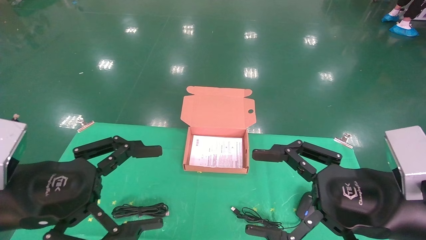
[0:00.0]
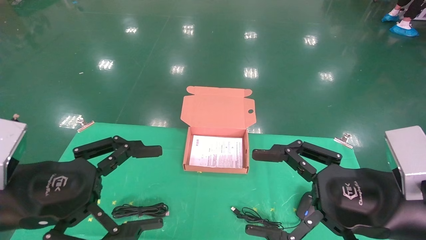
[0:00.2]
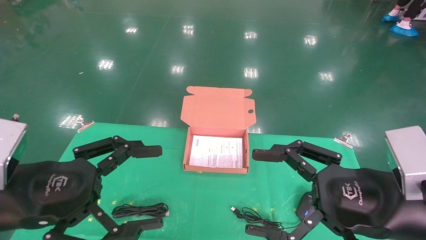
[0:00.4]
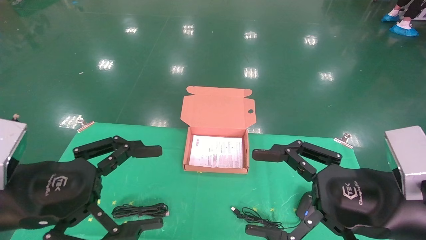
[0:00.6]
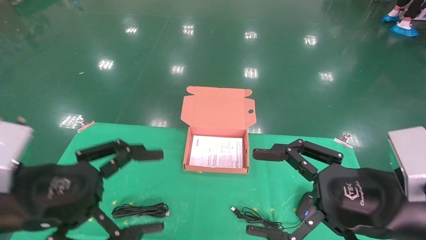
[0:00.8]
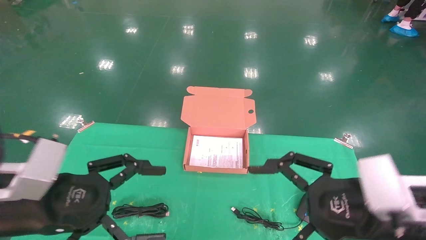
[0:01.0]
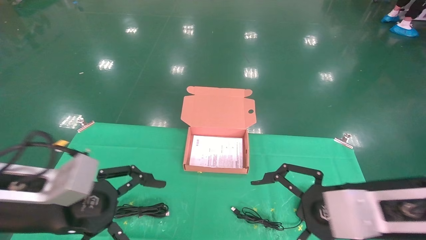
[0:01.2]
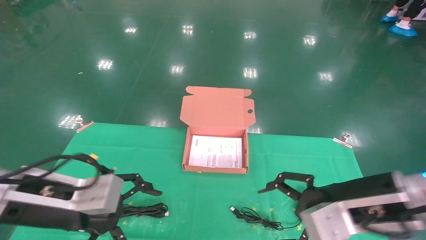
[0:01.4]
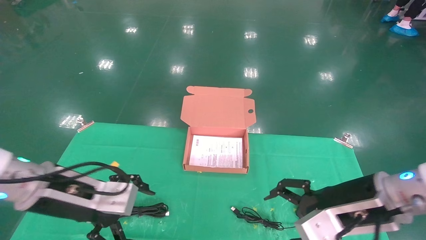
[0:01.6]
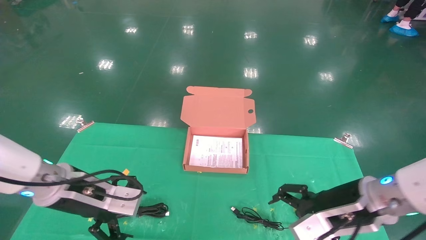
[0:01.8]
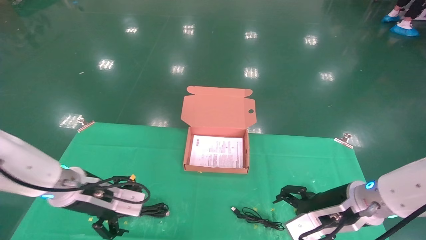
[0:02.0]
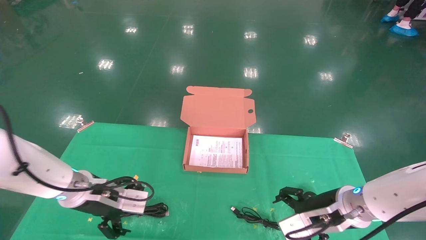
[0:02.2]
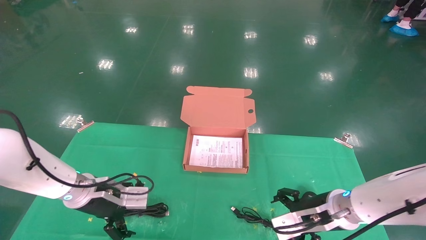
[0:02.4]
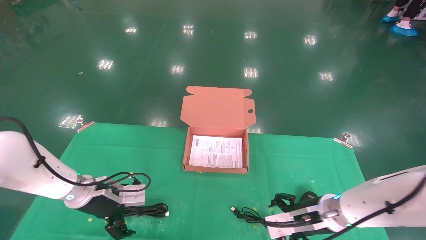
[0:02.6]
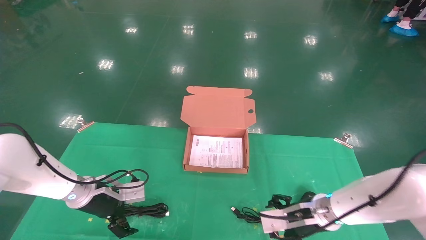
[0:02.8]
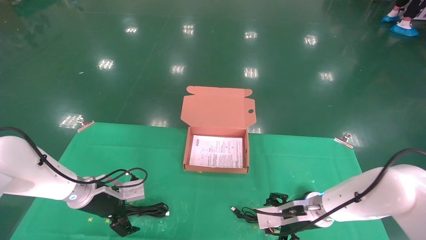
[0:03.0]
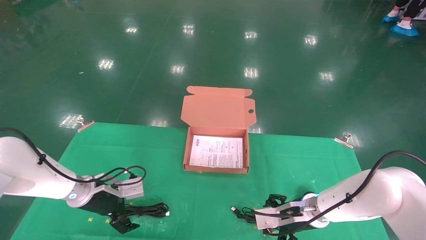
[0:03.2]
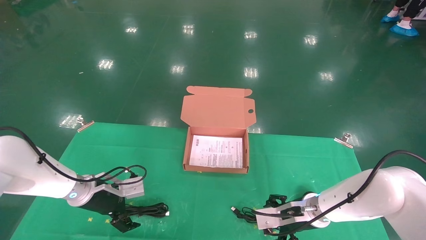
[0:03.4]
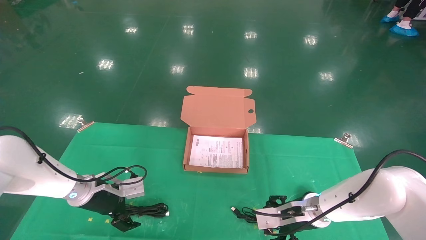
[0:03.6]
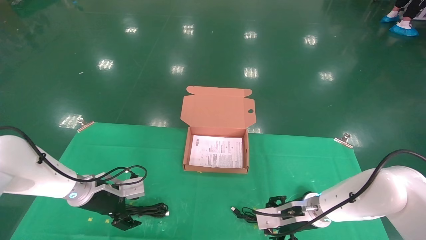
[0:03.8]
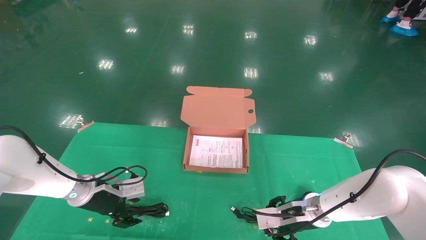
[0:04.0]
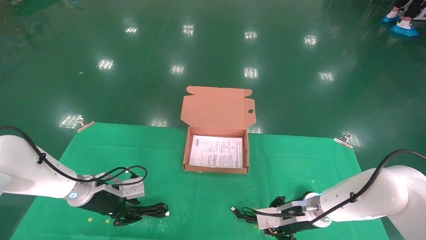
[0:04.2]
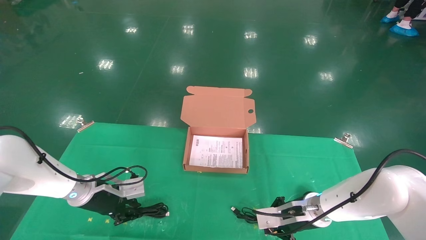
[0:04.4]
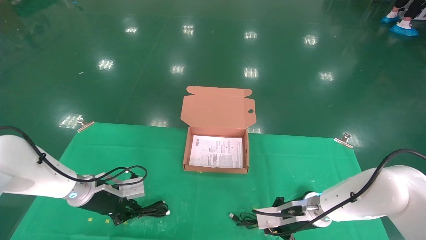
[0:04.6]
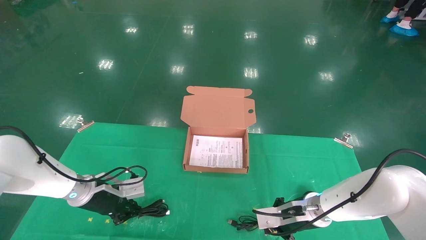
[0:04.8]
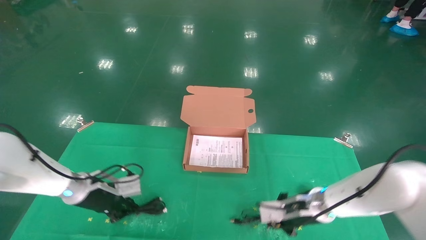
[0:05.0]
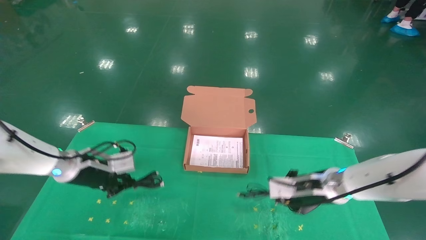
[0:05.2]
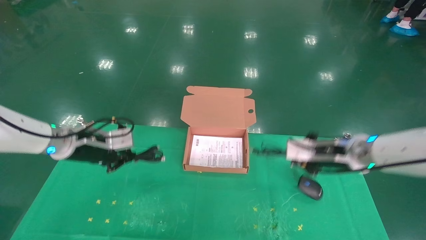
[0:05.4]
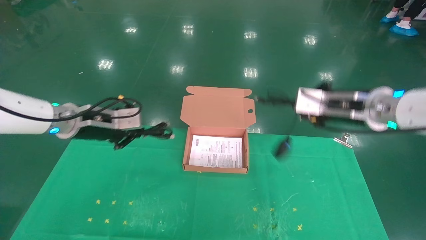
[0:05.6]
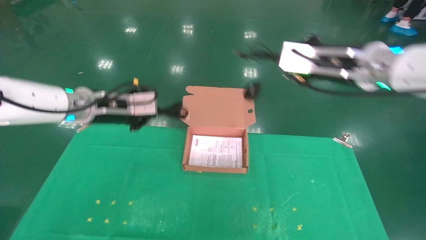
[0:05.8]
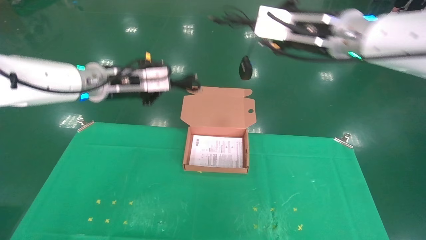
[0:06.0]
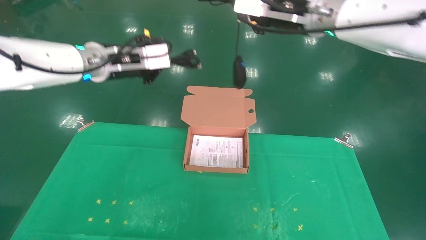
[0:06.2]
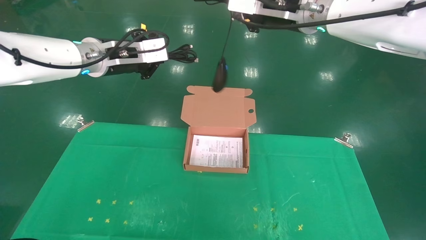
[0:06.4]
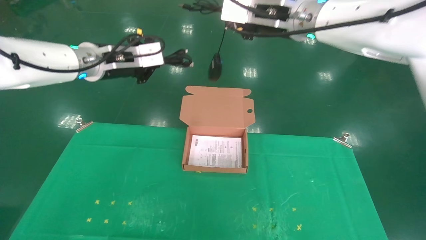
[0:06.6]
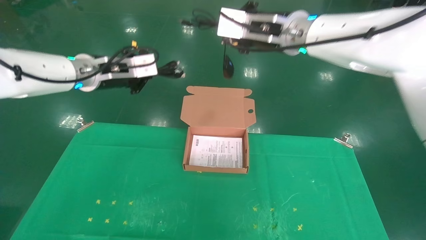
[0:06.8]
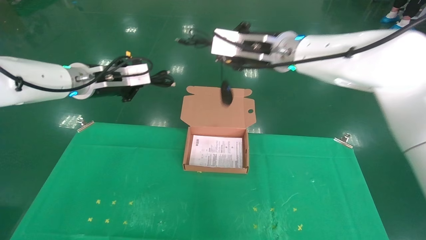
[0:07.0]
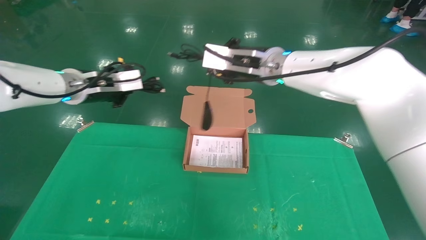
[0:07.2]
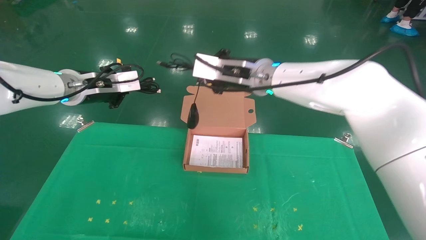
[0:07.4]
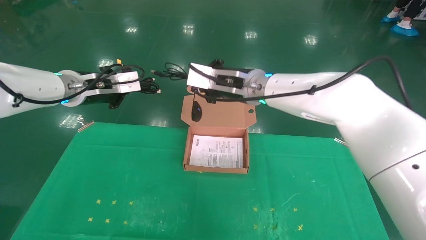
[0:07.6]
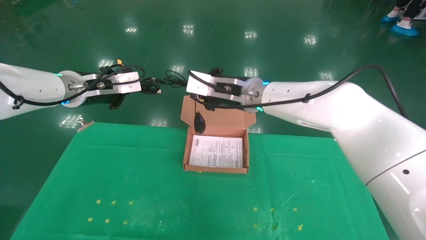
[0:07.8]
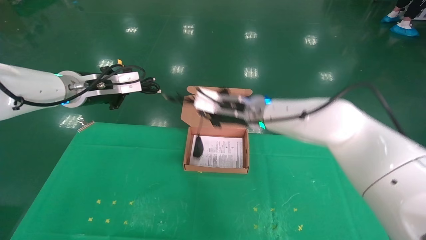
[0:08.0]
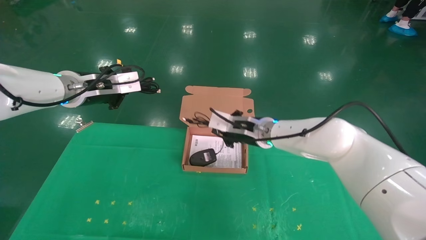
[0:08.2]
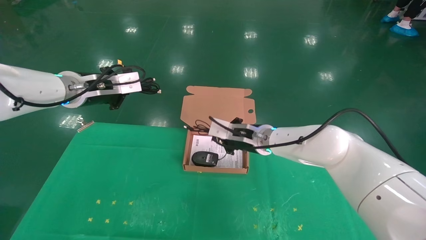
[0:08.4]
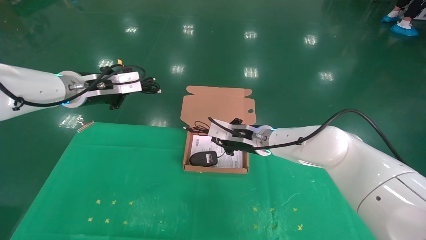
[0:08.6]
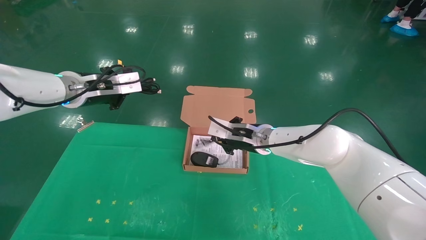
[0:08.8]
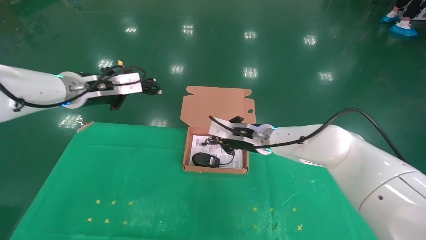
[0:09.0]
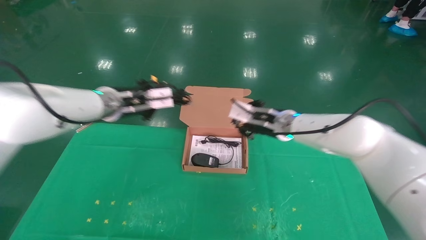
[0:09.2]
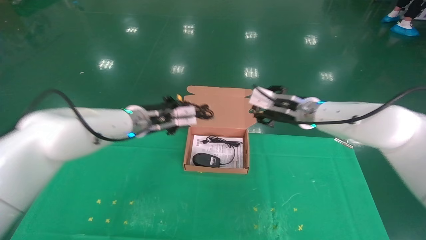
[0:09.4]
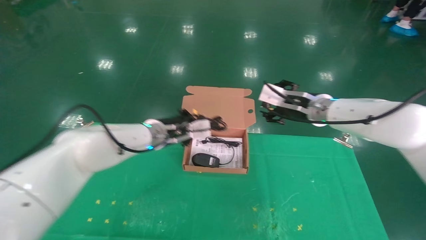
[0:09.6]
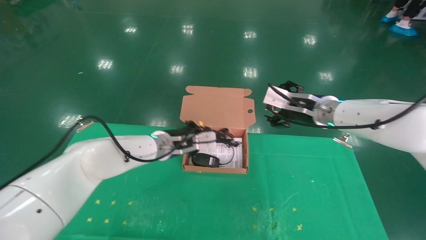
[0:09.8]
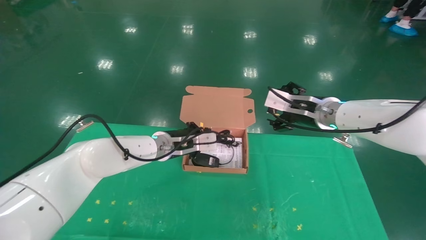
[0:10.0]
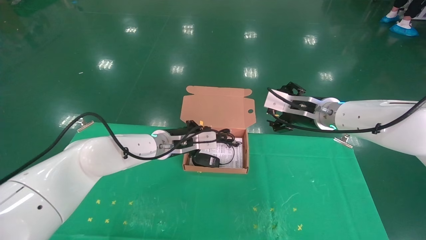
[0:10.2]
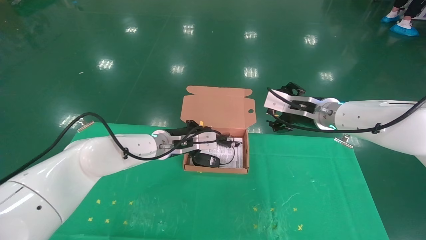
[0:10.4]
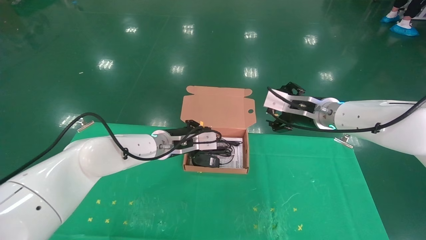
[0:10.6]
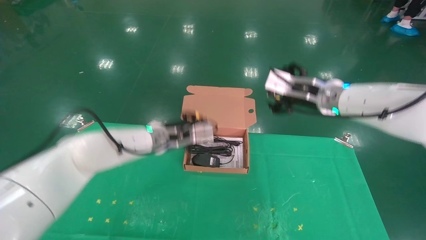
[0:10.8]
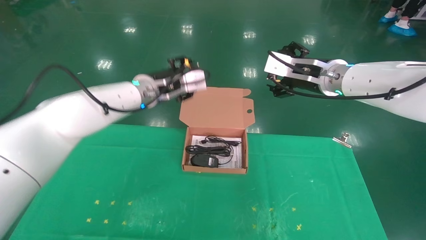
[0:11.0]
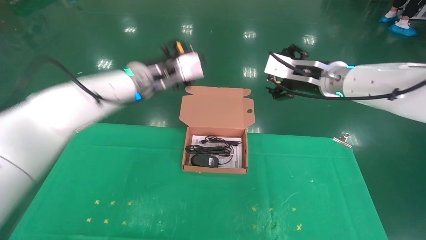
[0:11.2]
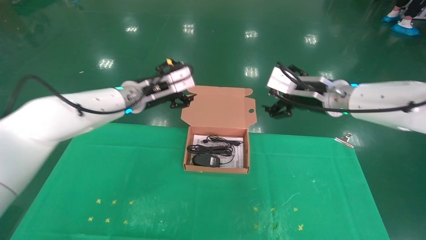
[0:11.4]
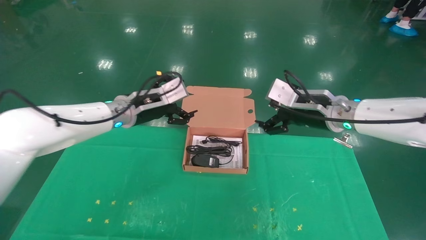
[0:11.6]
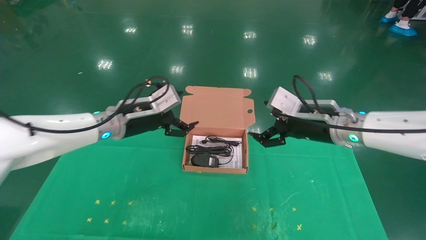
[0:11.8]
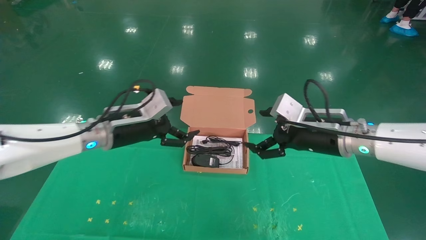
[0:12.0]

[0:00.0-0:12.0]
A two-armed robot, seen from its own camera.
Task of the whole recording: grasp data cable left put into box grasp mouse right put into box.
Step, 0.8 to 5.6 s: Grab and pick up both the mouse and power cord from the accessory packaging area at the same time.
Step, 5.8 to 11.0 s: Place the mouse and power cord into the box.
0.0 to 1.6 s: The grippers both shift forward by some 10 cm.
1.6 to 3.0 s: The left gripper heads forward and downward, covering approximately 20 cm, while the right gripper heads downward and forward, covering approximately 15 cm.
3.0 to 4.4 s: The right gripper closes. The left gripper closes up.
4.4 to 6.0 s: The two grippers go roughly 30 cm upward.
6.0 to 7.6 s: The right gripper travels to the left, downward and forward by some 15 cm. The left gripper moves some 5 cm.
7.6 to 9.0 s: The right gripper goes some 15 cm downward and to the right.
9.0 to 10.4 s: The left gripper travels to the right and downward by roughly 20 cm, while the right gripper shifts some 10 cm to the right and upward, and opens up.
10.4 to 12.0 s: The left gripper shifts some 15 cm to the left, backward and upward, and opens its fingers; the right gripper shifts approximately 5 cm backward, and travels upward and back again, some 5 cm each way.

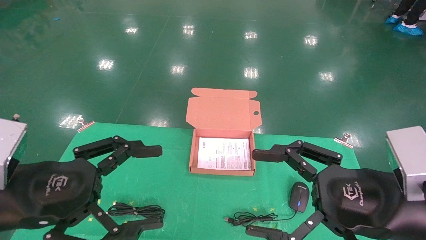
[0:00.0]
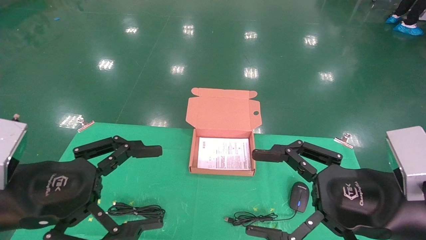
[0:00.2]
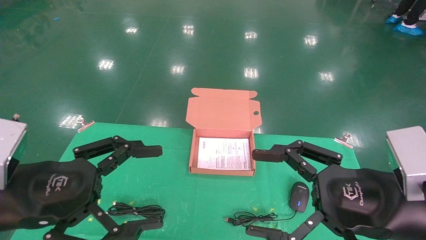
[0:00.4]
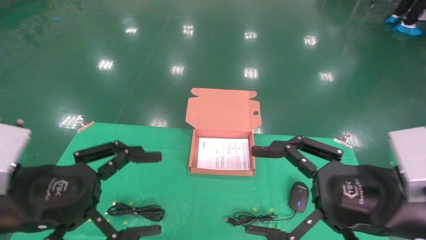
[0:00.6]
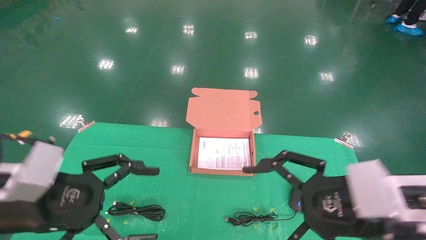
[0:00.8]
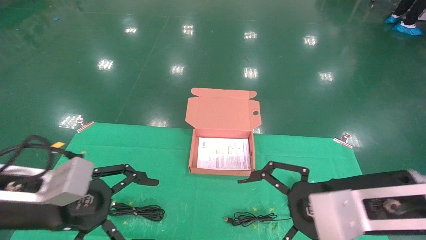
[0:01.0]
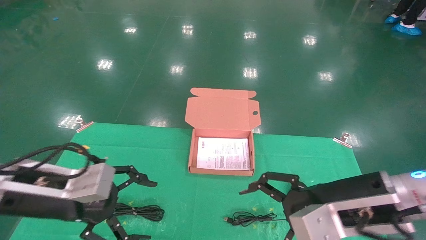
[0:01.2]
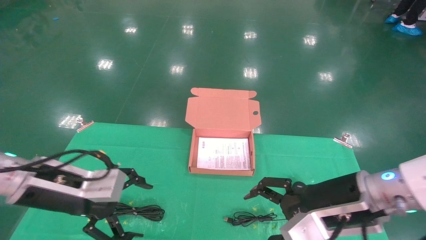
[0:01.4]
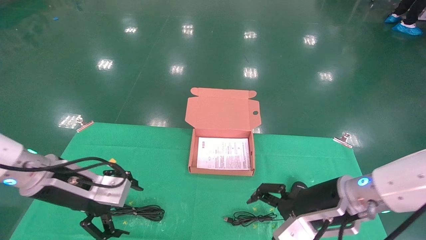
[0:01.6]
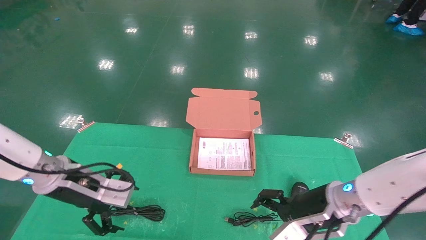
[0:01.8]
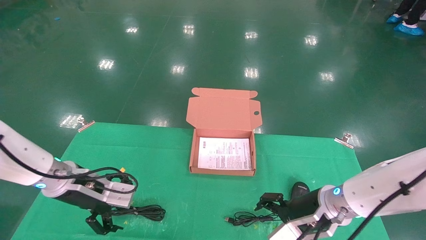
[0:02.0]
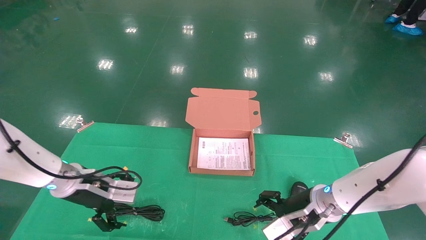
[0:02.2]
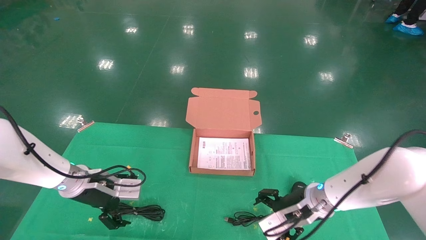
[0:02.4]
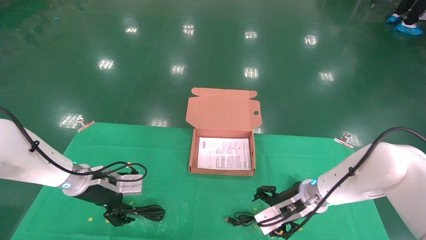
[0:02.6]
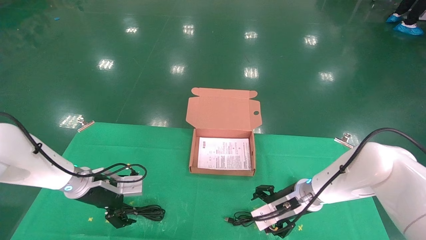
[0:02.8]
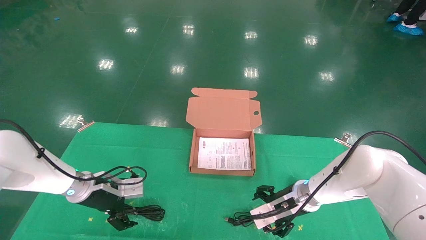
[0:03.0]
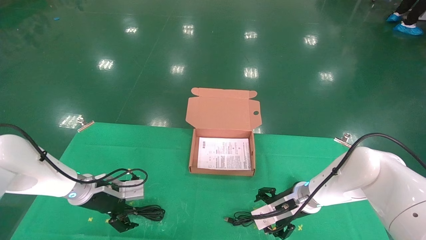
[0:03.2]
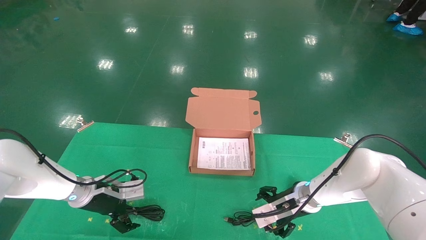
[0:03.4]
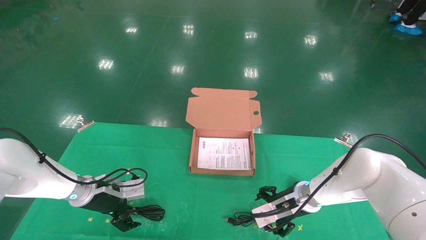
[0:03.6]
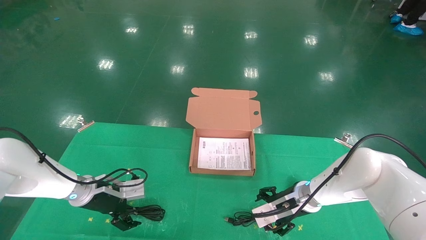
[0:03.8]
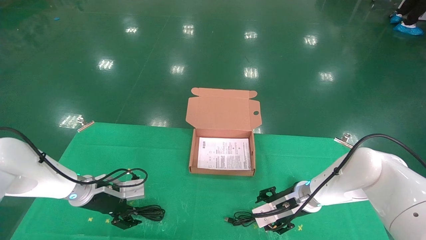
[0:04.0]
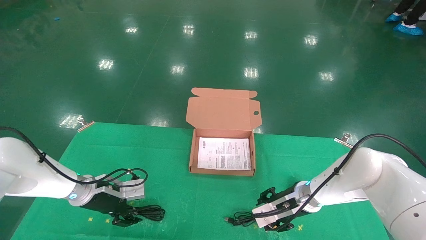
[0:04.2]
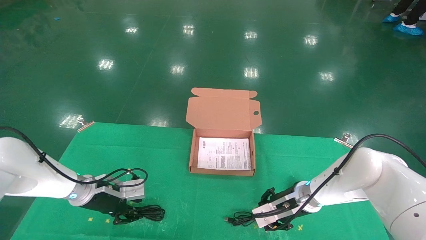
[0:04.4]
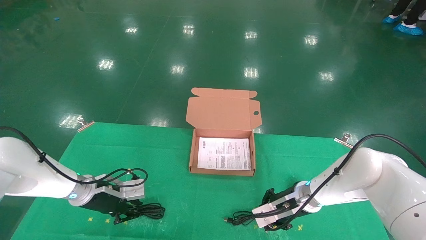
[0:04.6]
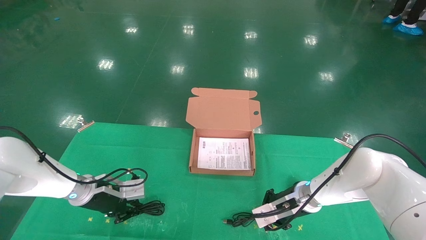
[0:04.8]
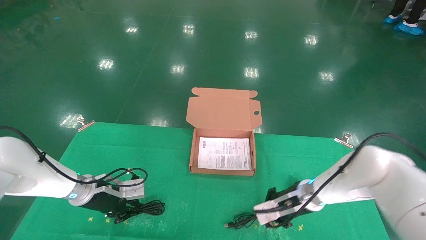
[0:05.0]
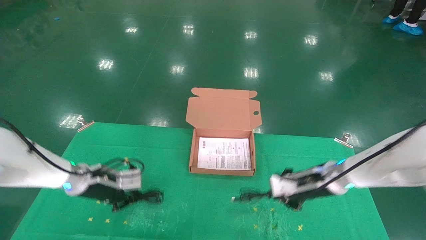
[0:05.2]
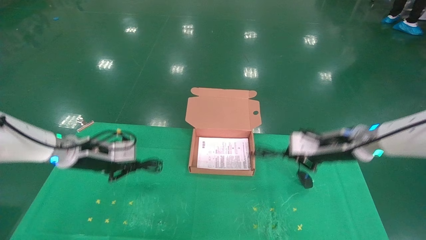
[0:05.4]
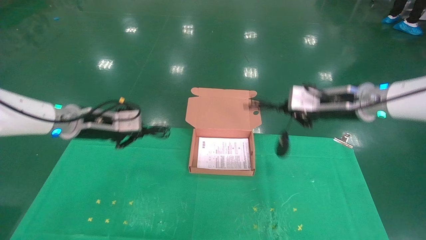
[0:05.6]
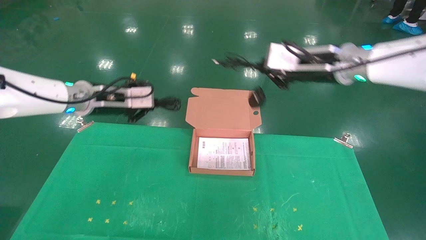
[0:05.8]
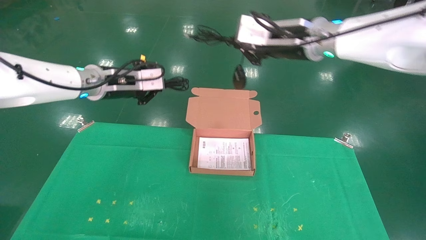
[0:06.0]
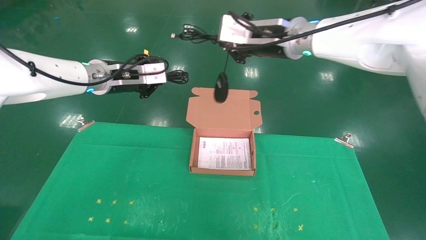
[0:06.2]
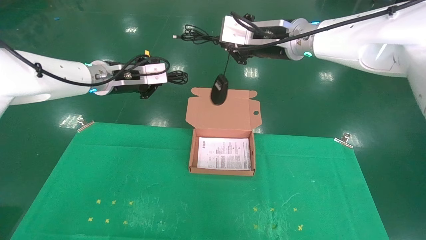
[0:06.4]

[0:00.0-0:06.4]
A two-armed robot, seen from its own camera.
Task of the whole recording: grasp data cable left put into box grasp mouse right put into box.
Step, 0.8 to 4.8 s: Grab and pick up both the mouse and power cord from the accessory packaging area at the same time.
0.0 to 1.6 s: The left gripper goes some 15 cm forward; the right gripper travels forward and downward by approximately 15 cm.
1.6 to 3.2 s: The grippers both shift forward and downward by about 15 cm.
3.2 to 4.8 s: The left gripper closes. The right gripper closes its fingers.
4.8 to 6.4 s: Both grippers travel together upward, roughly 30 cm.
